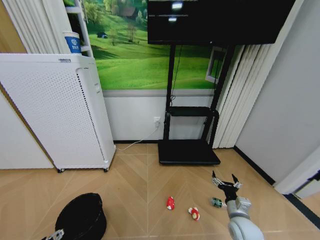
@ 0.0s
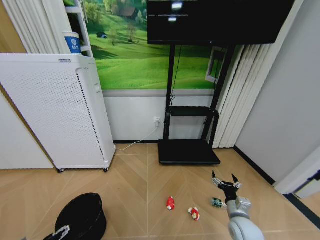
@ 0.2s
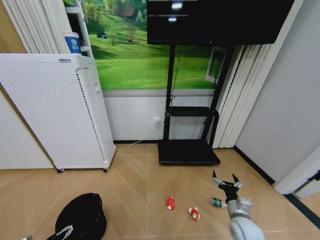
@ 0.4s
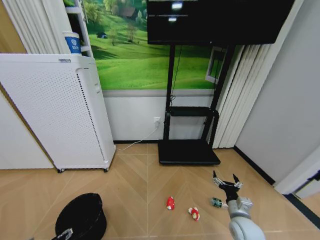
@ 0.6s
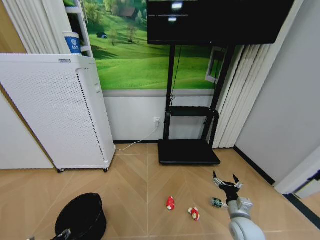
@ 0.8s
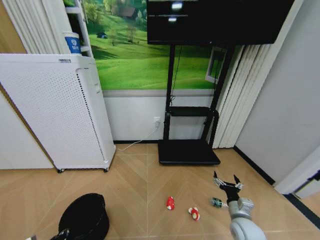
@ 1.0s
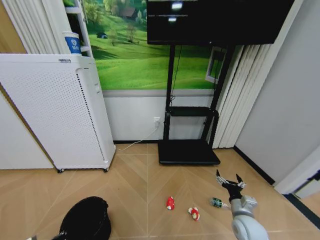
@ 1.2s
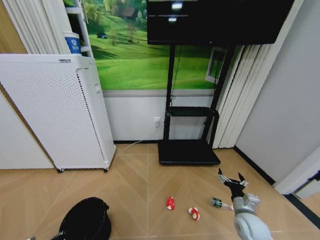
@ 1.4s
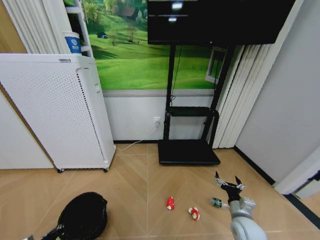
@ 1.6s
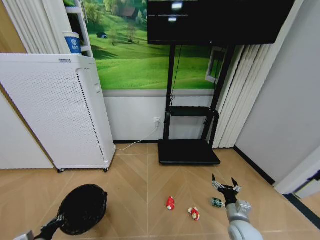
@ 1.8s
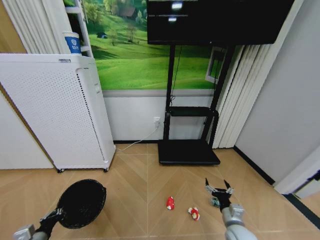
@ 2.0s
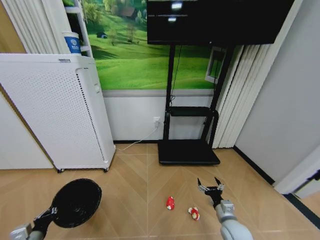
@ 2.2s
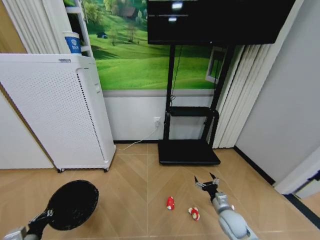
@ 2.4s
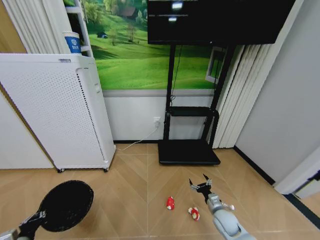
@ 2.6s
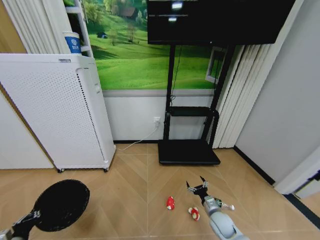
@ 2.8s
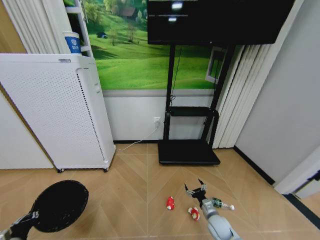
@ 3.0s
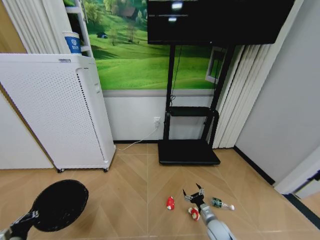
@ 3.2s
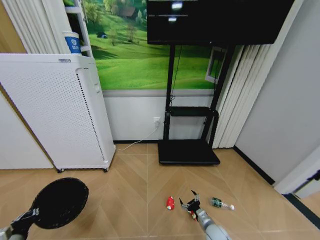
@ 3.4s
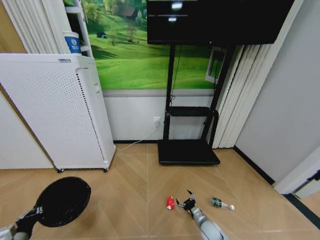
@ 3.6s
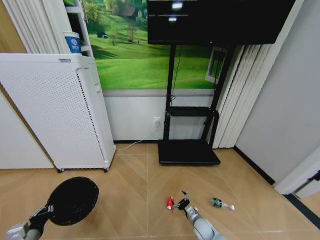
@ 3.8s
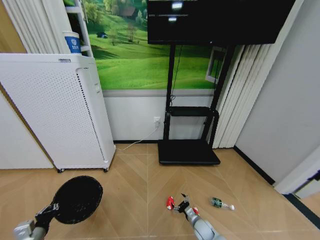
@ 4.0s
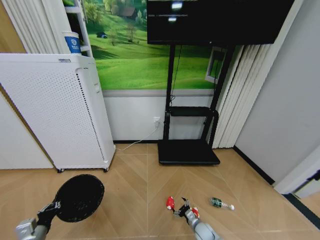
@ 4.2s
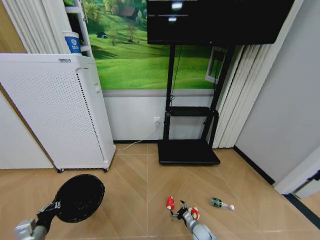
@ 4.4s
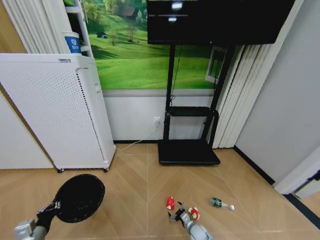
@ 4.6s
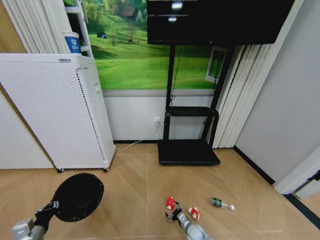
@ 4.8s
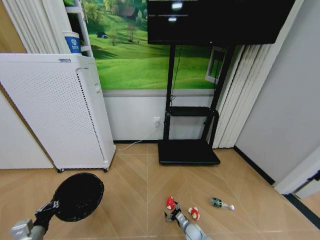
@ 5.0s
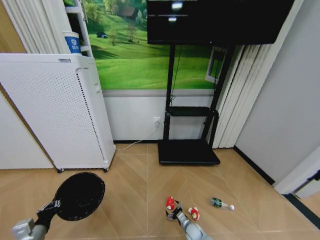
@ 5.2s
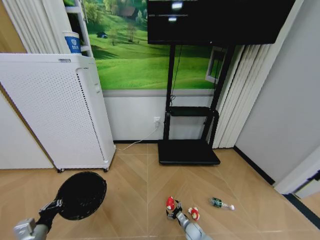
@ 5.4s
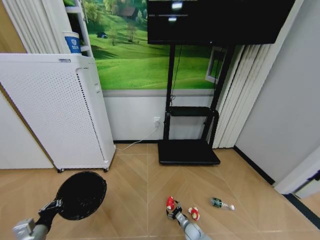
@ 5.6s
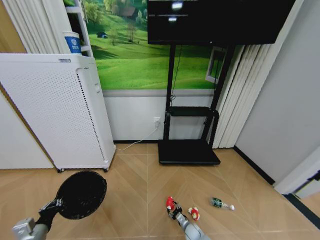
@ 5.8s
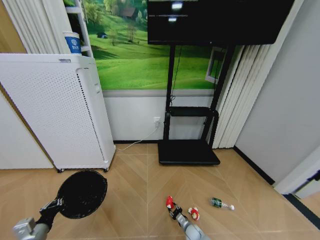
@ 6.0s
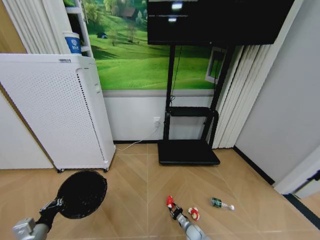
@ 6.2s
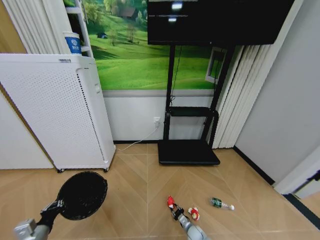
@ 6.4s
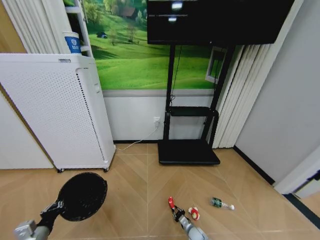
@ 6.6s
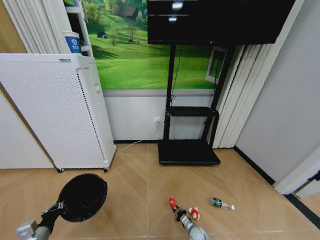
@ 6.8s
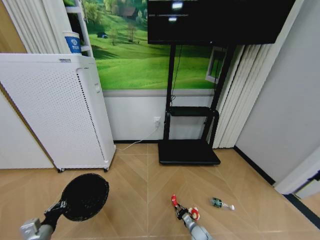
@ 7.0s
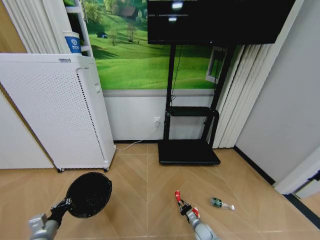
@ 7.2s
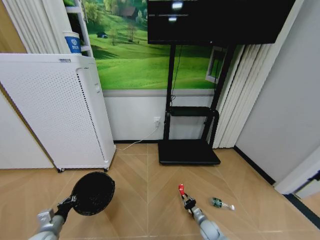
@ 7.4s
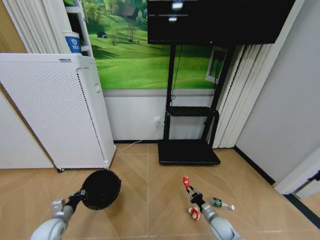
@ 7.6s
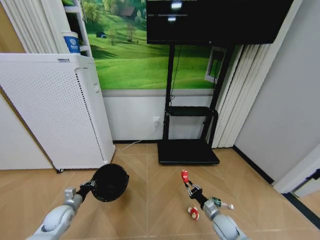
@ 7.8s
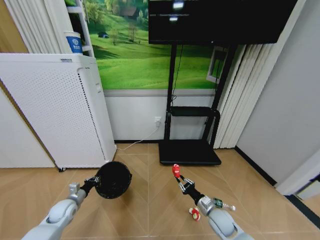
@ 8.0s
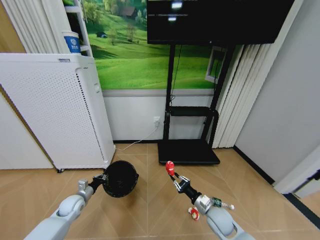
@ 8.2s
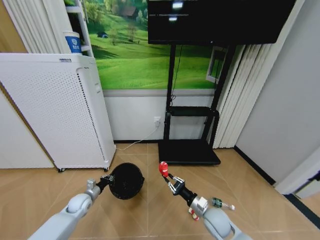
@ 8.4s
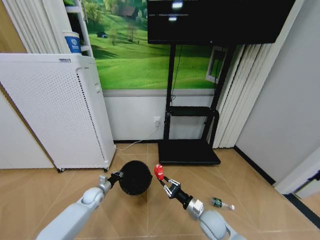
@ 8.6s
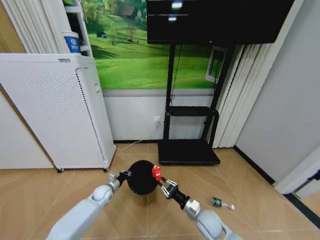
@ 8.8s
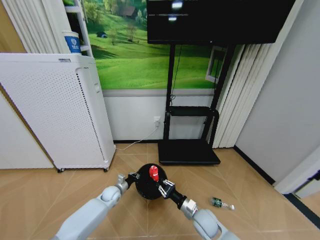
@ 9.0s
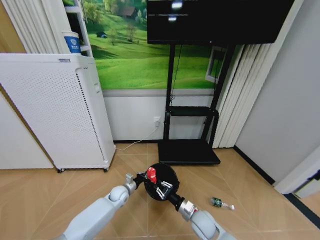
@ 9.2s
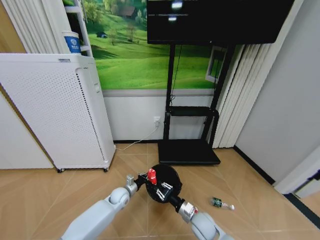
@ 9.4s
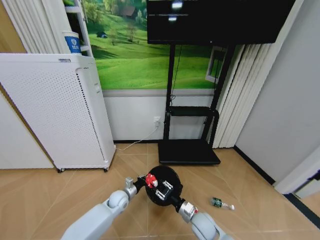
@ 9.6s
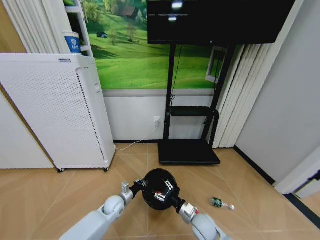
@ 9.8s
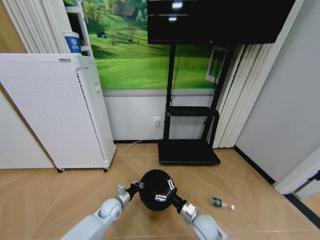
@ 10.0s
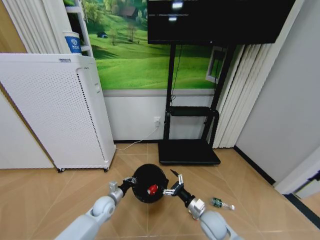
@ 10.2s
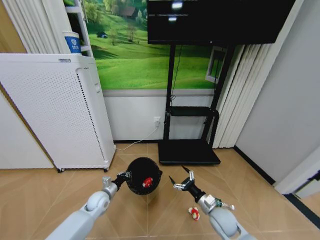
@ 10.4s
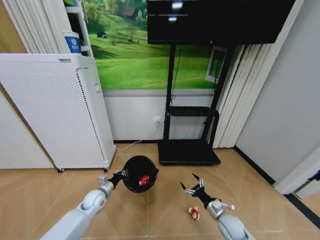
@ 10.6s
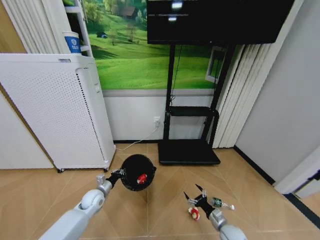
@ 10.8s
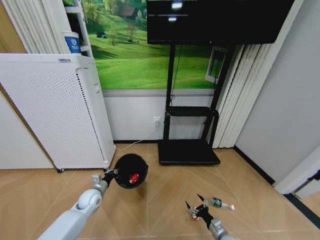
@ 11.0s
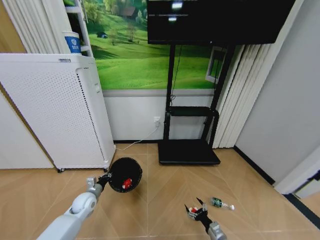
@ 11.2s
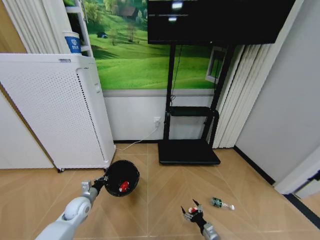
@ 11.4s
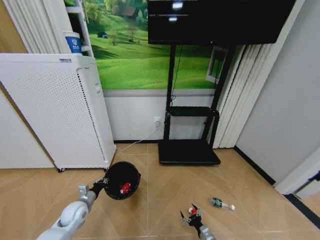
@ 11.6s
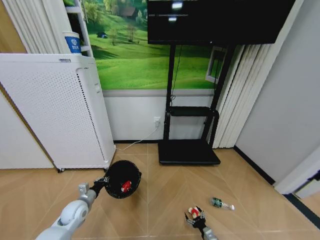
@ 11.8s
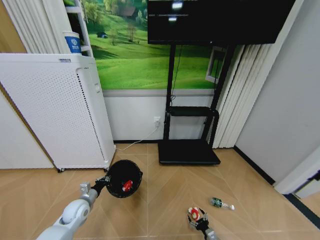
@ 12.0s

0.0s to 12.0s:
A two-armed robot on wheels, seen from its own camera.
Task of the whole recording: Pick up the trash bin and place the garbage on the floor into it.
0.0s to 1.6s: The left gripper shifts roughly 5 cm downward, and closes up.
1.6s to 3.0s: The right gripper is displaced downward and to the left by some 15 cm. Meanwhile the left gripper ends up approximately 5 cm from where it was.
3.0s to 4.4s: The right gripper goes about 10 cm downward, while the left gripper is displaced to the right by about 5 cm.
4.4s to 6.0s: The right gripper shifts by roughly 5 cm, and closes its fingers.
6.0s to 7.6s: The right gripper is displaced upward and to the right by approximately 15 cm, and closes its fingers. The left gripper moves forward and downward, roughly 10 cm.
7.6s to 9.0s: The left gripper travels to the right and forward by some 25 cm. The right gripper travels to the left and upward by approximately 15 cm.
9.0s to 10.4s: The left gripper is displaced backward by about 5 cm, and reaches some 5 cm to the right, then returns, while the right gripper shifts about 5 cm to the right, and opens.
10.4s to 12.0s: The right gripper heads downward, covering approximately 20 cm. Meanwhile the left gripper travels to the left by roughly 10 cm.

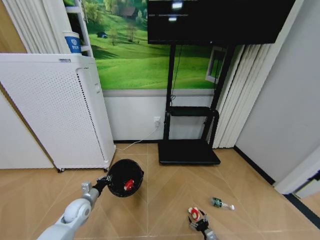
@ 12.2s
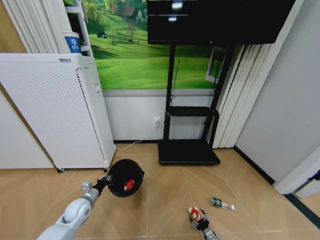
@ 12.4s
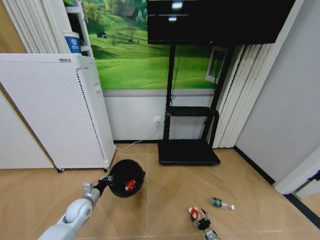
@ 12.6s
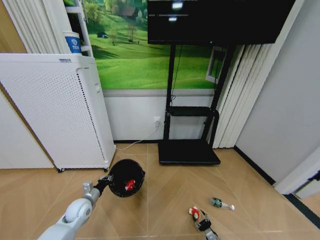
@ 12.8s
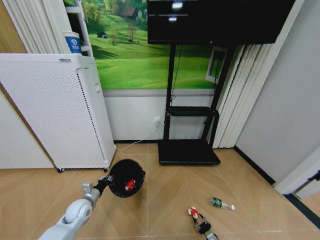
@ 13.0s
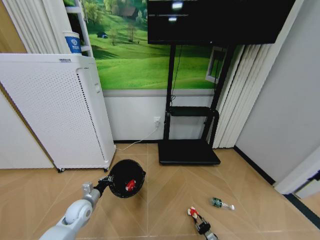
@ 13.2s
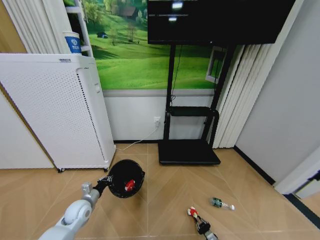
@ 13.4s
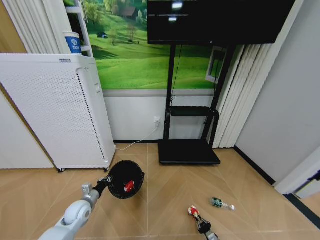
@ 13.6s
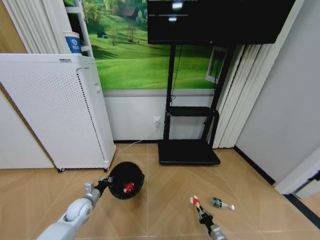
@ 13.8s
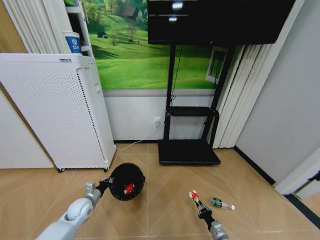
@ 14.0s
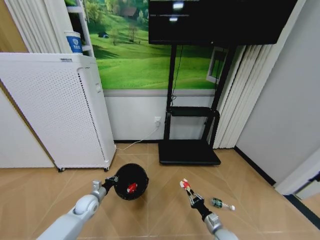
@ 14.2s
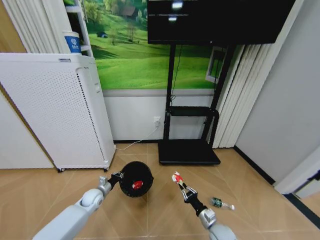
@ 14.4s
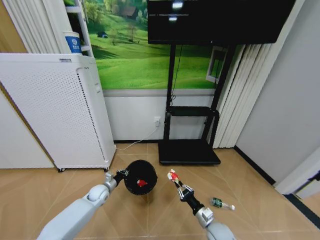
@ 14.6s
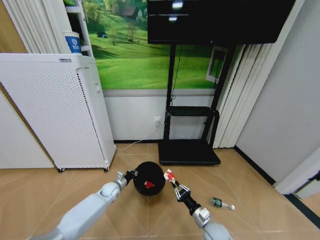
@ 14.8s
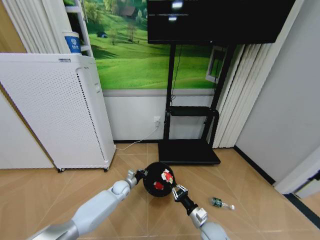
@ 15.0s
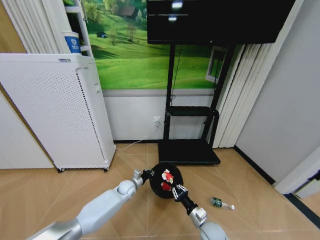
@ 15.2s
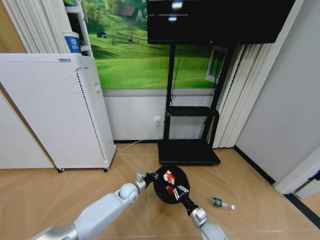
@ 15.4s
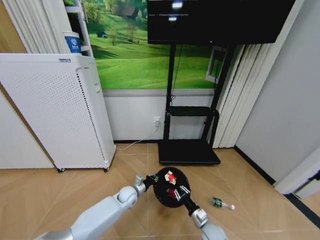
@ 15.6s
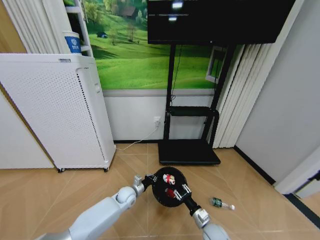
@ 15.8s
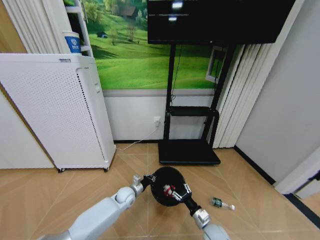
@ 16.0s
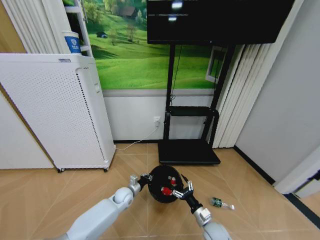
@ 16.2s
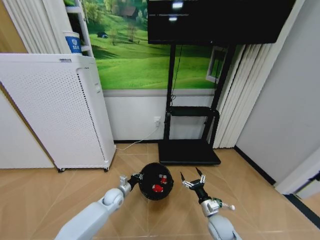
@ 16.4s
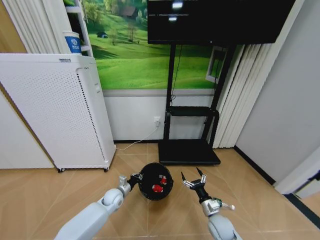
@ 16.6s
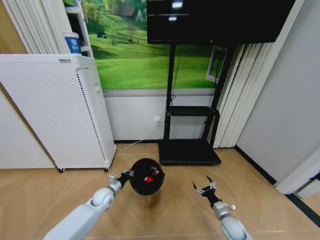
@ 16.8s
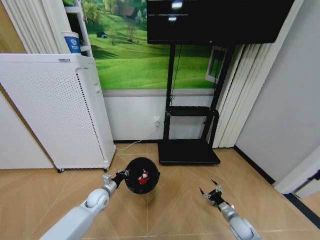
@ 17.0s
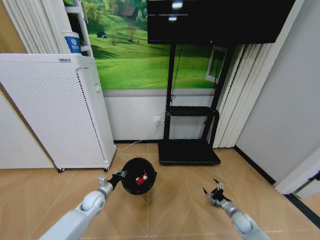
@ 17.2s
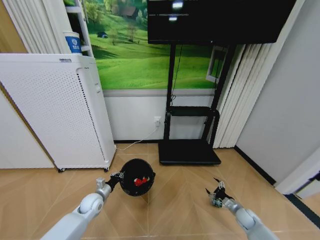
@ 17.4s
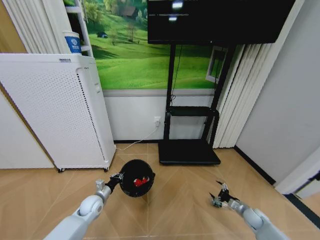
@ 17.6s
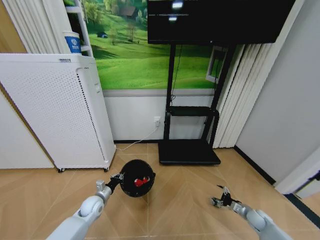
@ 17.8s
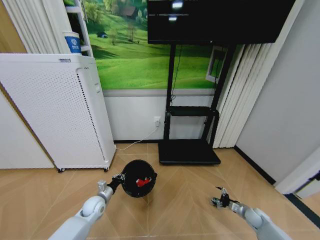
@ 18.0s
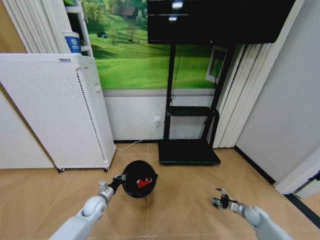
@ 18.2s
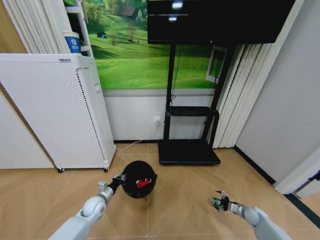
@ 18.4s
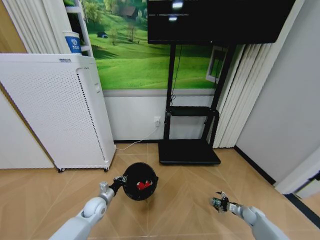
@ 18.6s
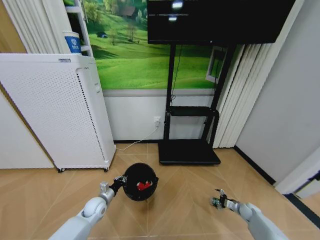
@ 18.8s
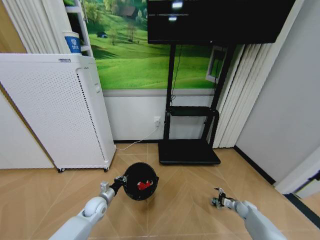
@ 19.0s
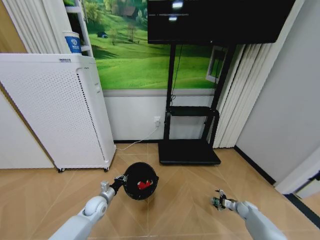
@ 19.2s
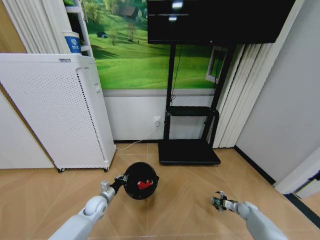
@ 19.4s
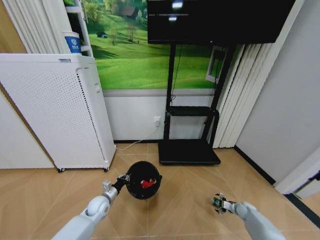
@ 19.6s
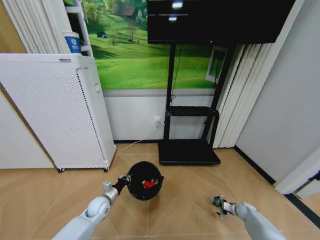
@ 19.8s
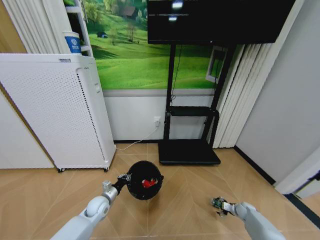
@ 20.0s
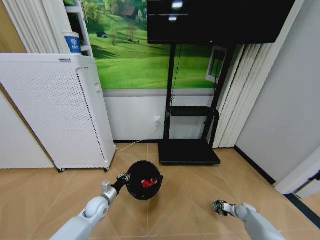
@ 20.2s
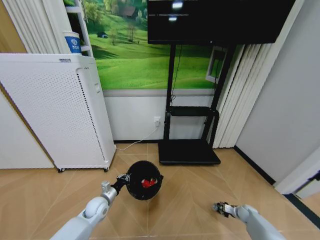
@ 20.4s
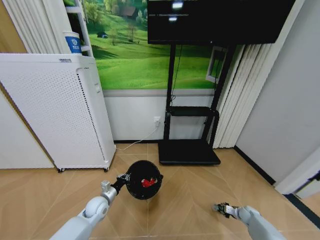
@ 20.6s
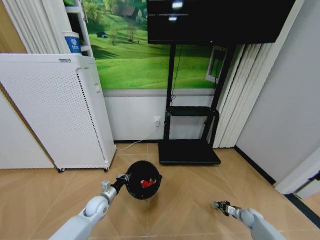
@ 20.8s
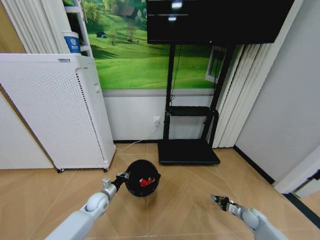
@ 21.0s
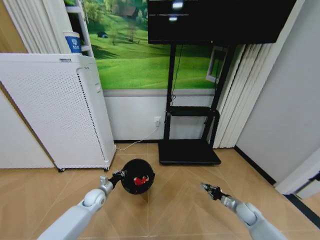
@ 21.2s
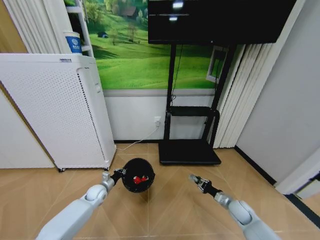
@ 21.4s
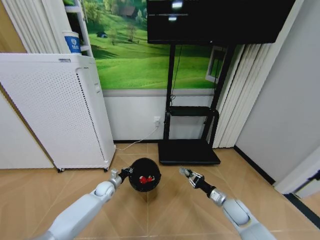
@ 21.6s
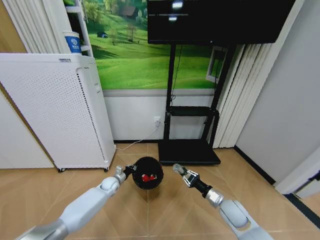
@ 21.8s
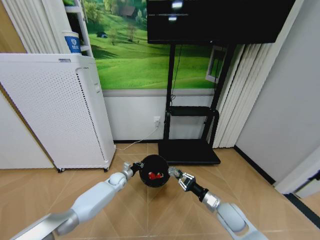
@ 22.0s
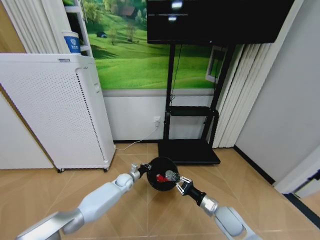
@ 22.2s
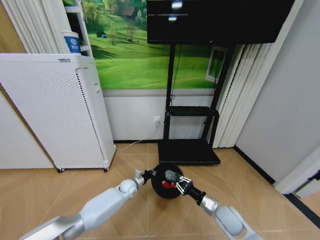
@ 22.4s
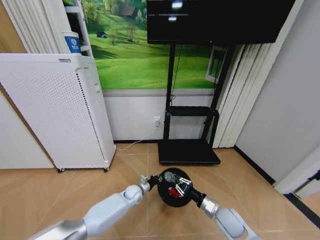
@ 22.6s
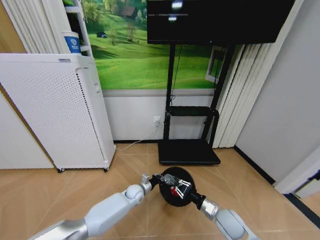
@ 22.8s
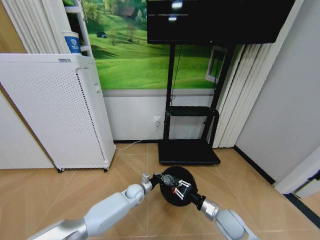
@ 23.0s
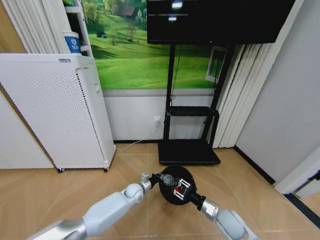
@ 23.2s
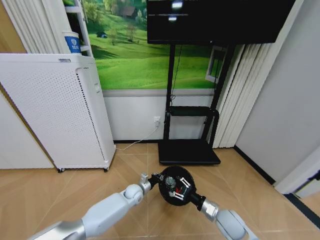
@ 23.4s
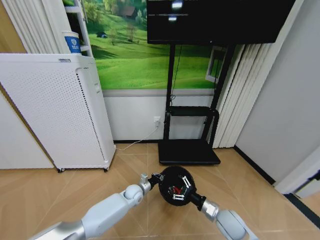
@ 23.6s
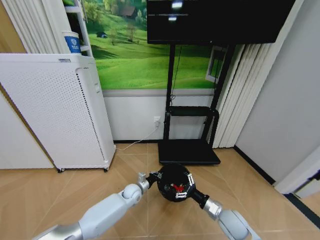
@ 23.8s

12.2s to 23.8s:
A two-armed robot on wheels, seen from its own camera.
Task of the whole recording: Pick up the trash bin and place the garbage on the floor into it.
12.2s to 13.6s: The right gripper closes.
13.6s to 15.0s: The right gripper moves upward and to the left, roughly 25 cm. Meanwhile the left gripper goes roughly 20 cm to the right and forward.
15.0s to 16.6s: The left gripper goes some 5 cm backward, and travels to the right and back again, roughly 5 cm each way; the right gripper moves about 5 cm, and opens its fingers.
16.6s to 18.0s: The left gripper heads to the left, covering approximately 10 cm. The right gripper shifts about 25 cm to the right.
18.0s to 19.4s: The right gripper shifts by about 5 cm.
19.4s to 21.0s: The right gripper closes its fingers.
21.0s to 22.4s: The left gripper shifts approximately 15 cm to the right and forward. Meanwhile the right gripper shifts approximately 30 cm to the left and upward.
22.4s to 23.8s: The right gripper opens.
